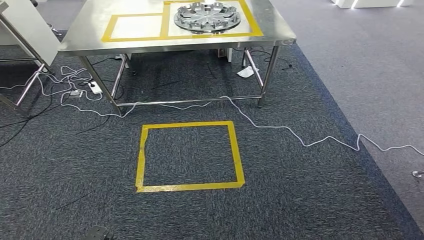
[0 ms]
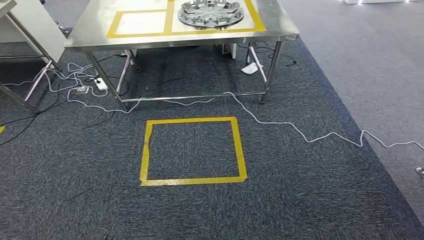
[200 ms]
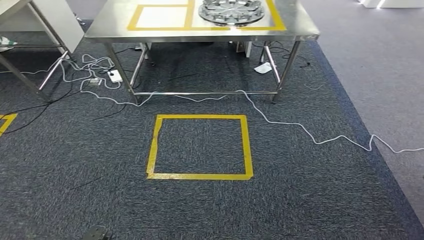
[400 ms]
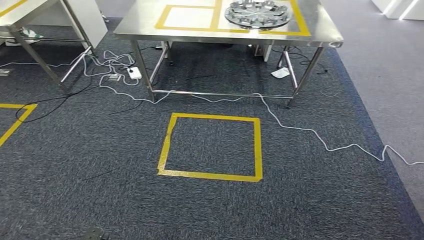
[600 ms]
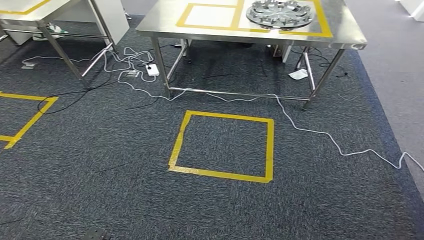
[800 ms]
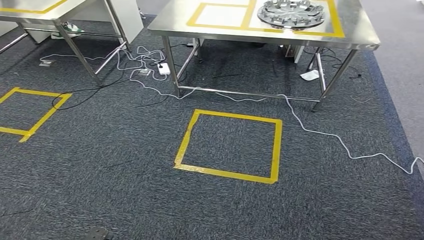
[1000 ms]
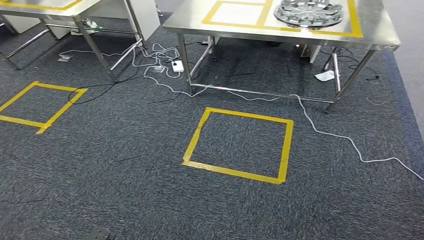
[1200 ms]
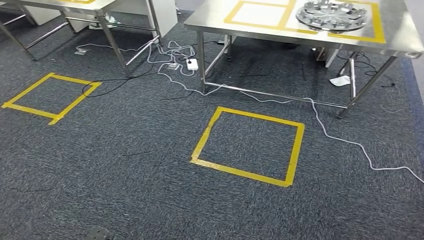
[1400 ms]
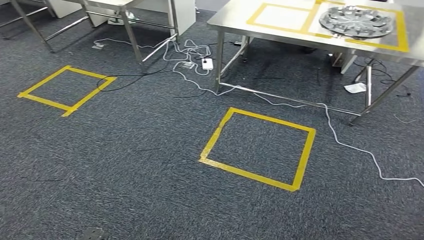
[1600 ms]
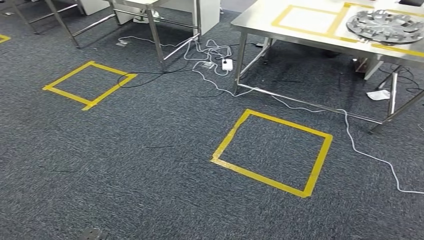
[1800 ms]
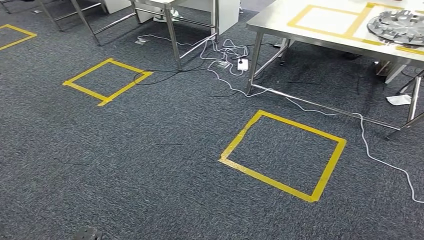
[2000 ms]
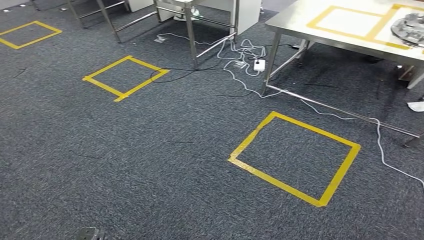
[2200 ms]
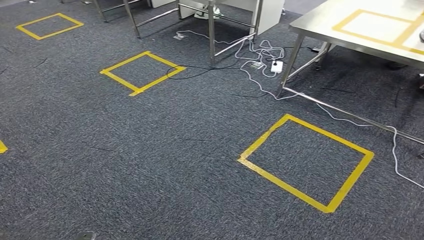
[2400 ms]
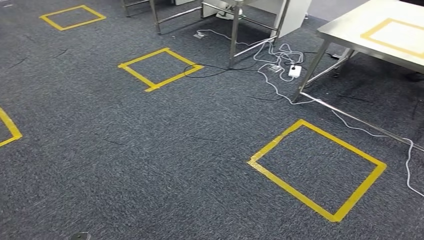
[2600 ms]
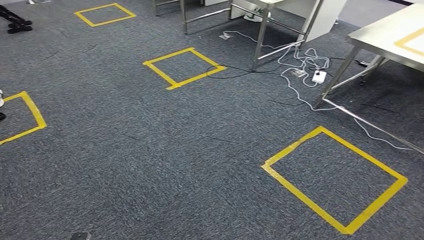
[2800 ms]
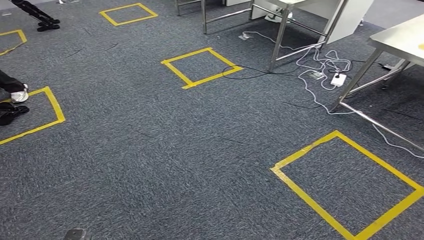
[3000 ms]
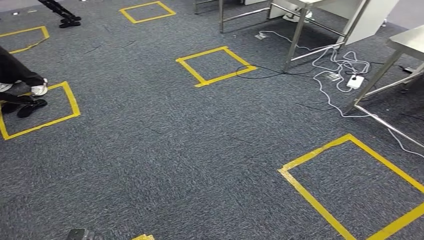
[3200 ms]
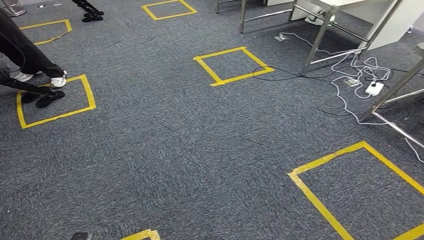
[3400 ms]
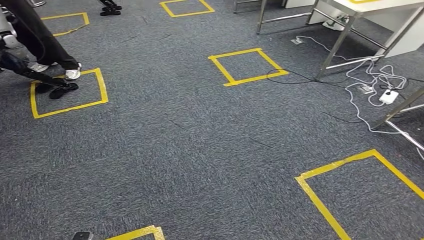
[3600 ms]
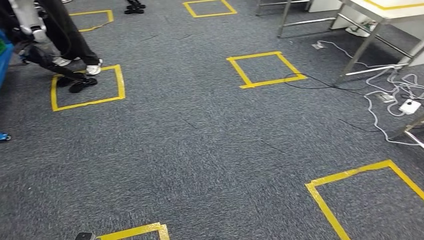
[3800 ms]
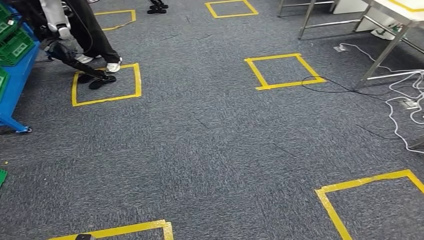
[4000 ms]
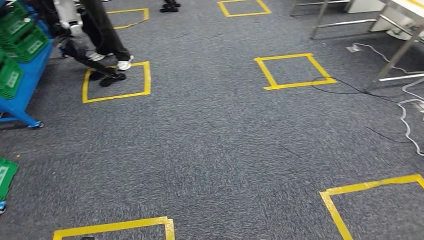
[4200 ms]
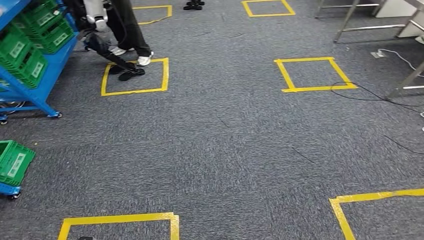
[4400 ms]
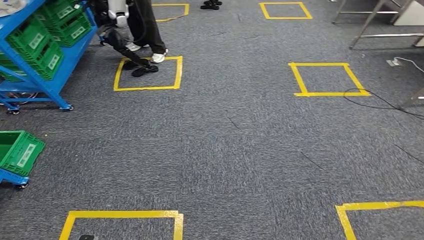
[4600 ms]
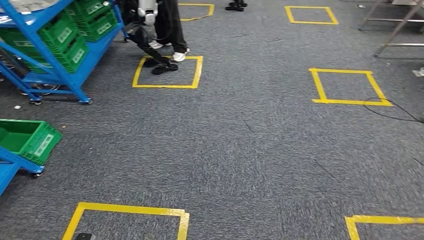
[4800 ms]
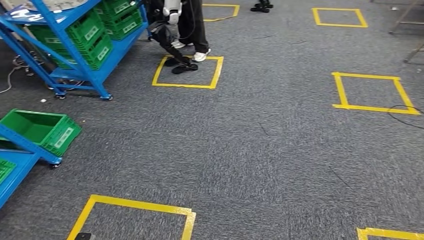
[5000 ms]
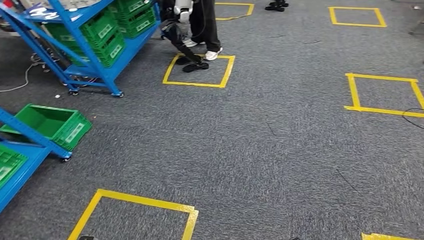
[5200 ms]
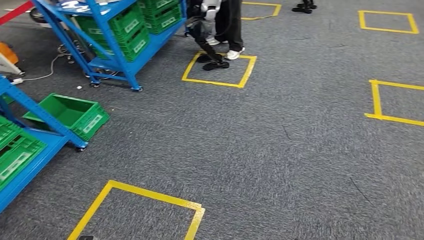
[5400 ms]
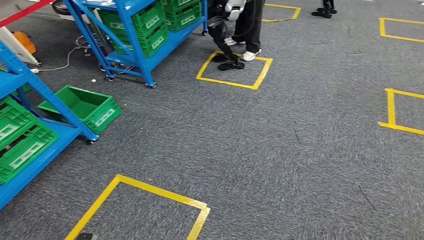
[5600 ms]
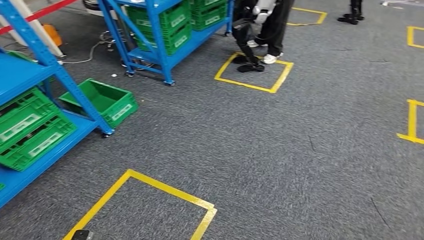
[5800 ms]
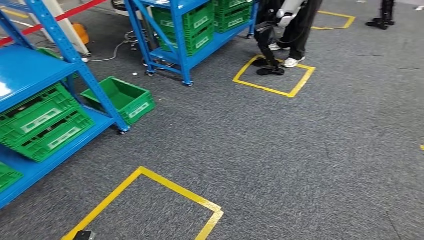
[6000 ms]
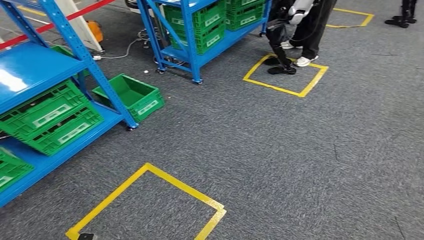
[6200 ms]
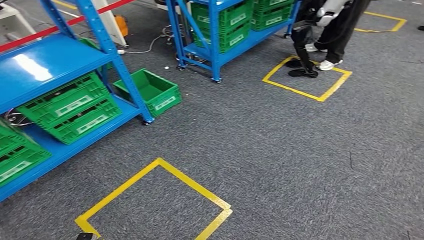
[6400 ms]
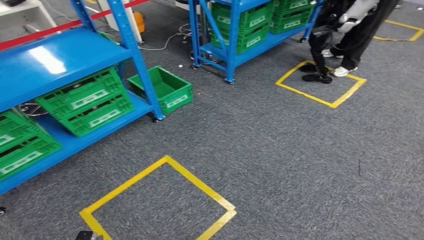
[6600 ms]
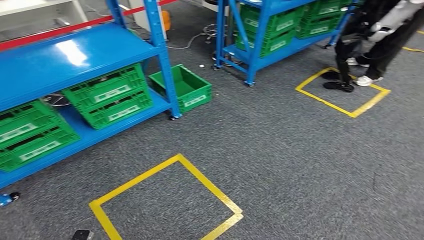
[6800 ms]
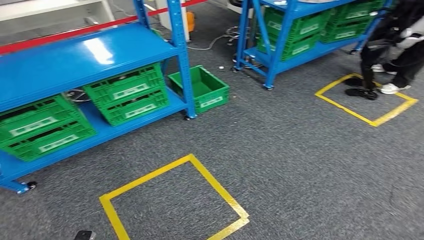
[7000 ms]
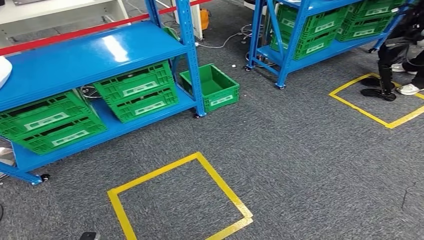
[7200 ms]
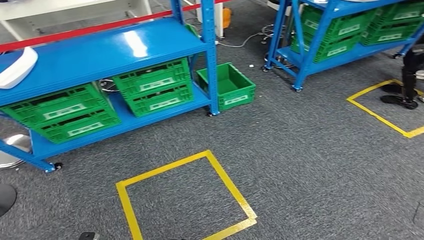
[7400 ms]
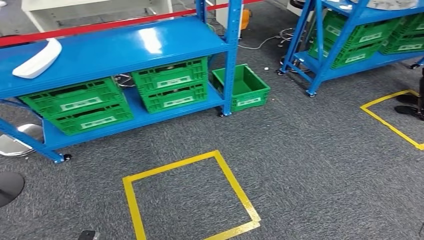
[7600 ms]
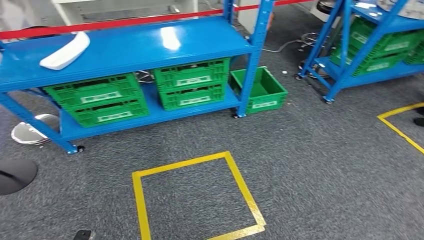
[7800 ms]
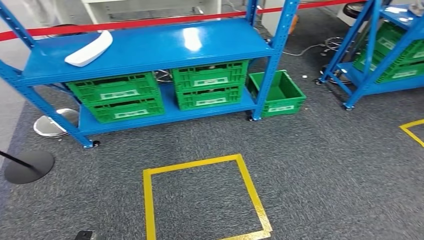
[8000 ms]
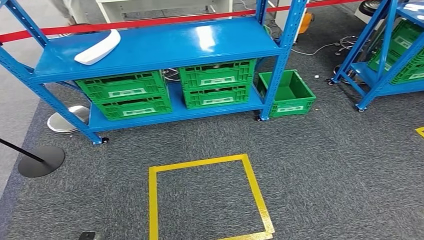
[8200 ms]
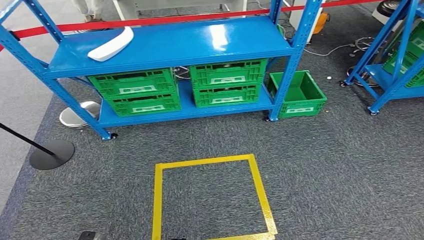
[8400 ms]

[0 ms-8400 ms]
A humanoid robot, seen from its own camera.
Step, 0 ms to 8400 ms: Move to the initial position of the workbench.

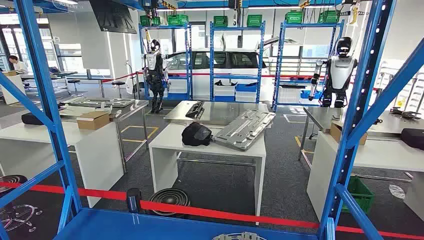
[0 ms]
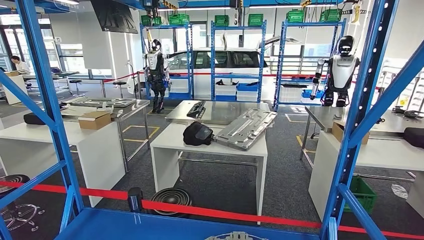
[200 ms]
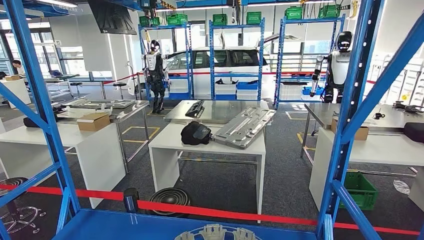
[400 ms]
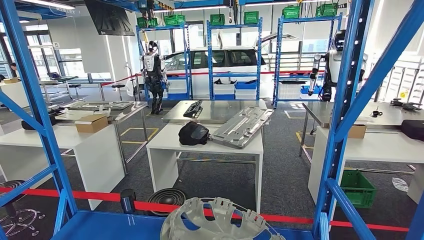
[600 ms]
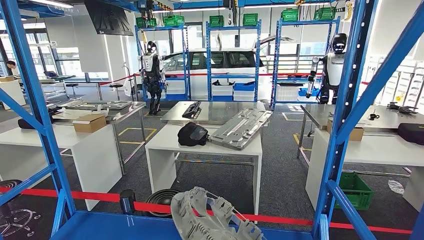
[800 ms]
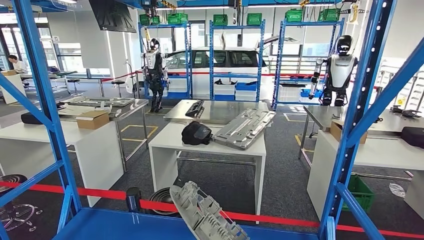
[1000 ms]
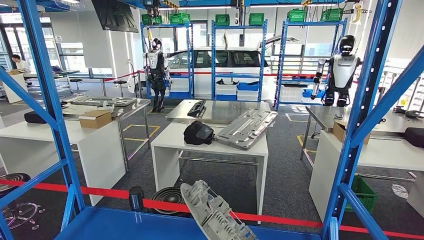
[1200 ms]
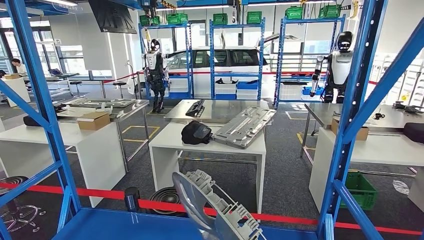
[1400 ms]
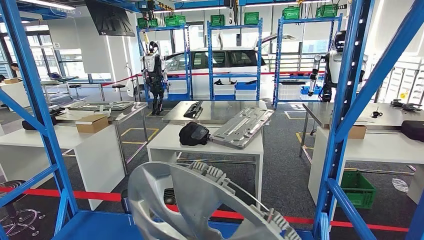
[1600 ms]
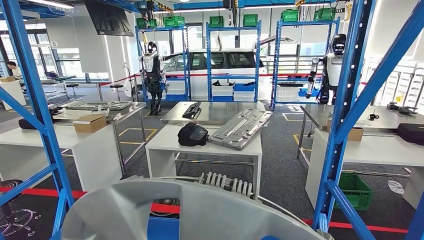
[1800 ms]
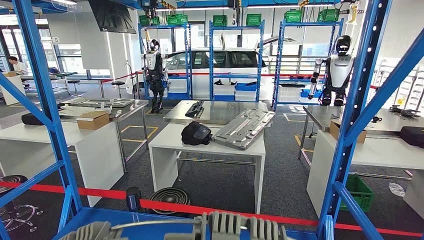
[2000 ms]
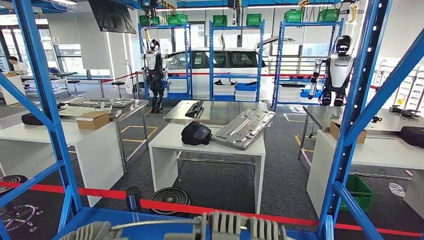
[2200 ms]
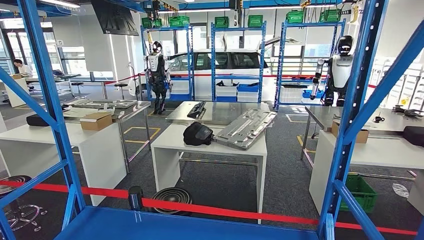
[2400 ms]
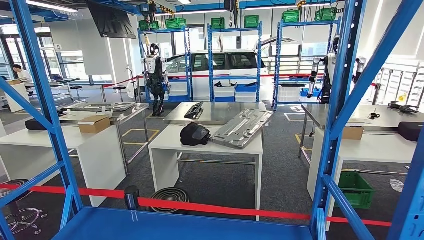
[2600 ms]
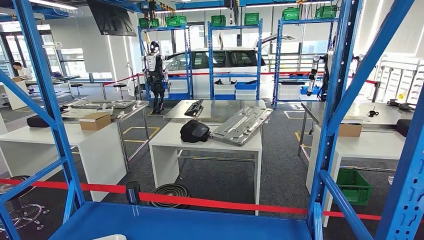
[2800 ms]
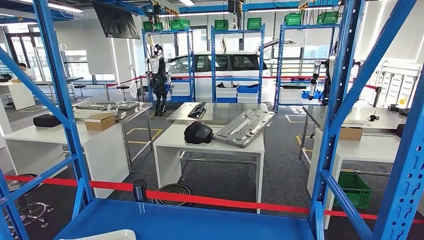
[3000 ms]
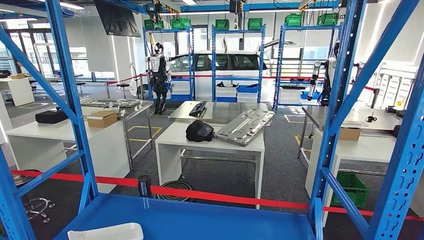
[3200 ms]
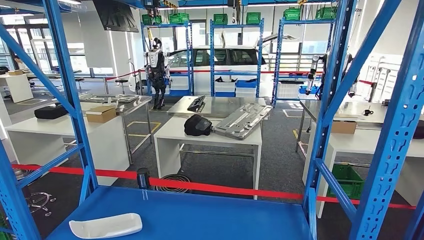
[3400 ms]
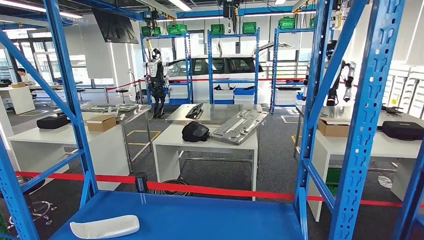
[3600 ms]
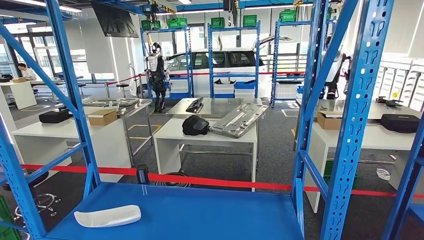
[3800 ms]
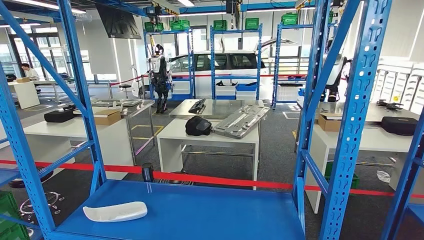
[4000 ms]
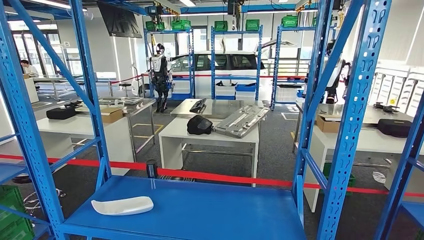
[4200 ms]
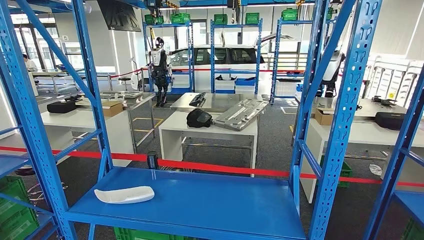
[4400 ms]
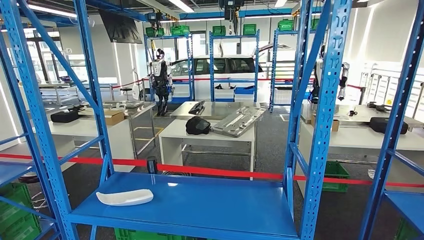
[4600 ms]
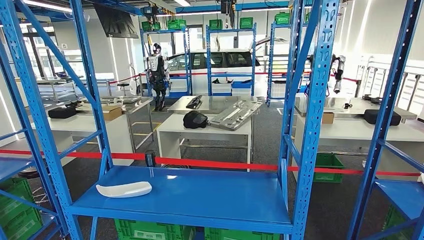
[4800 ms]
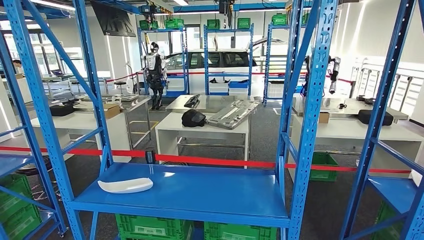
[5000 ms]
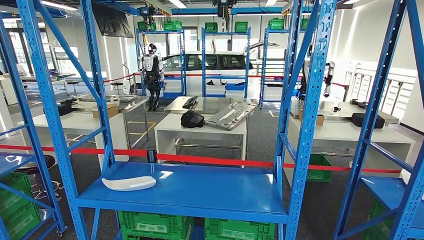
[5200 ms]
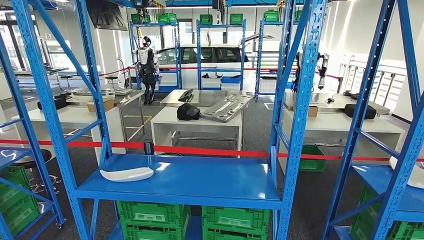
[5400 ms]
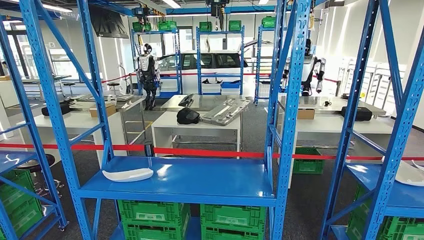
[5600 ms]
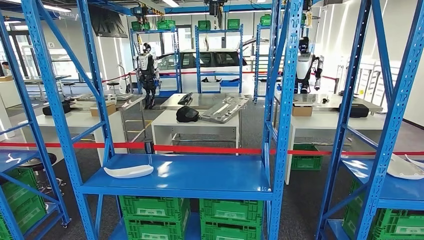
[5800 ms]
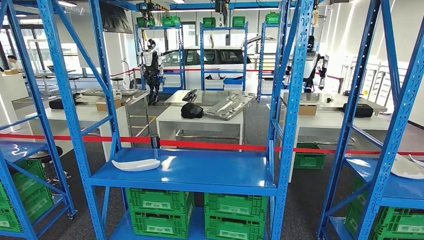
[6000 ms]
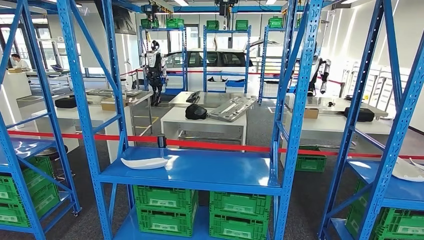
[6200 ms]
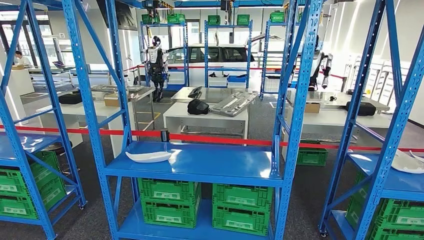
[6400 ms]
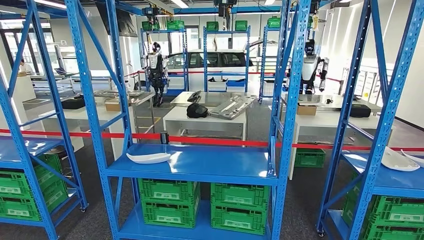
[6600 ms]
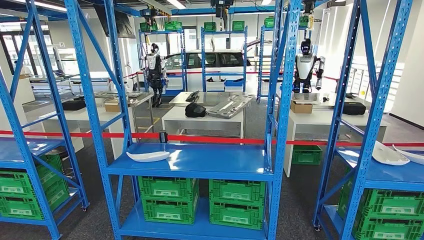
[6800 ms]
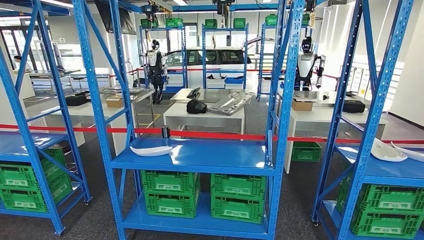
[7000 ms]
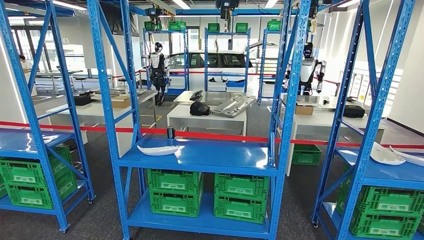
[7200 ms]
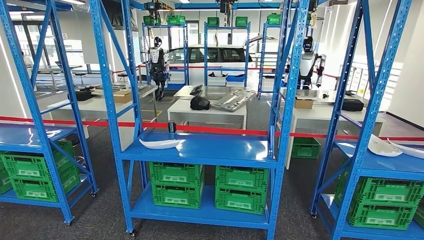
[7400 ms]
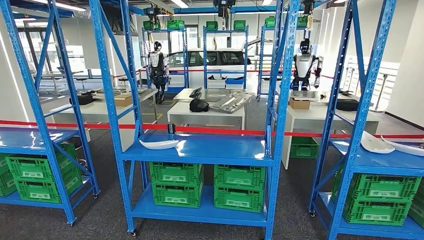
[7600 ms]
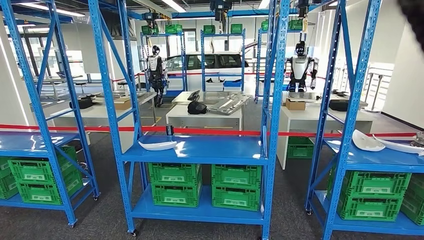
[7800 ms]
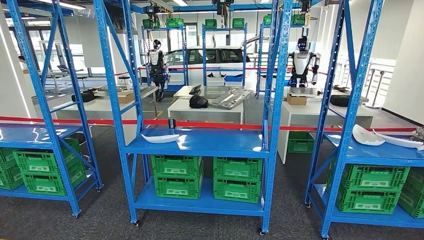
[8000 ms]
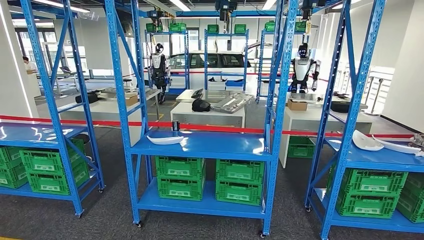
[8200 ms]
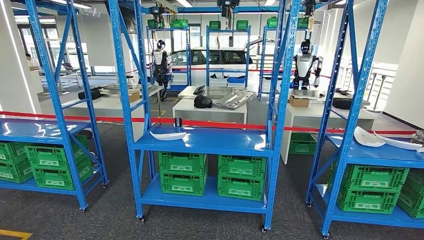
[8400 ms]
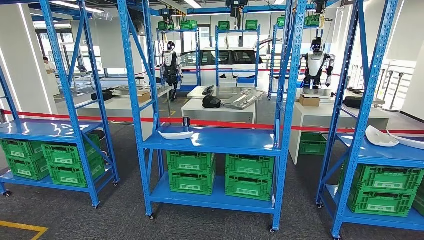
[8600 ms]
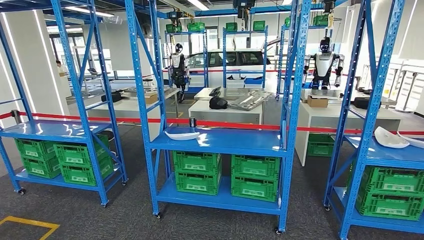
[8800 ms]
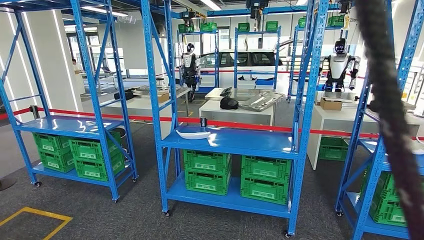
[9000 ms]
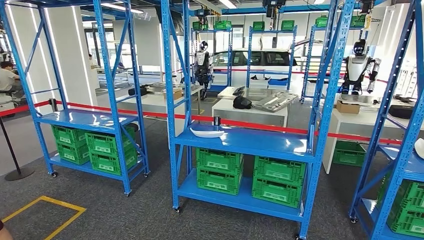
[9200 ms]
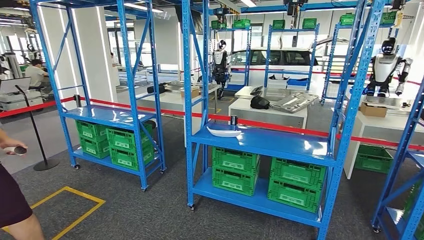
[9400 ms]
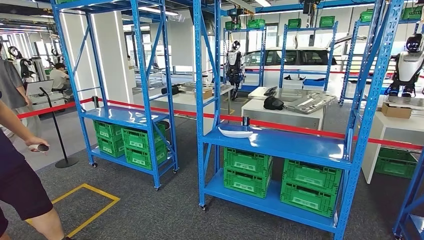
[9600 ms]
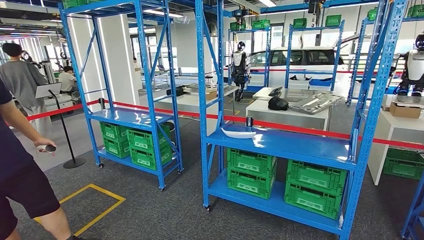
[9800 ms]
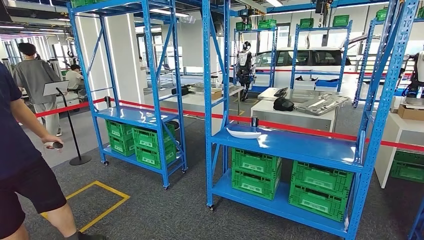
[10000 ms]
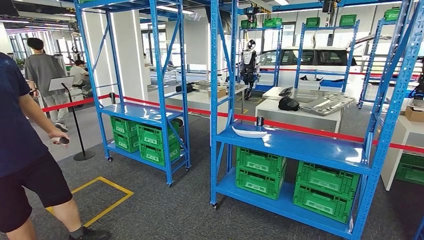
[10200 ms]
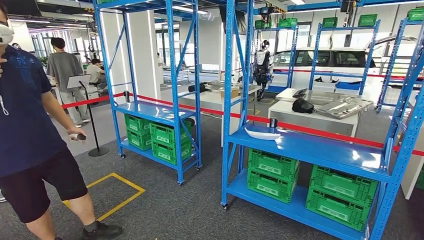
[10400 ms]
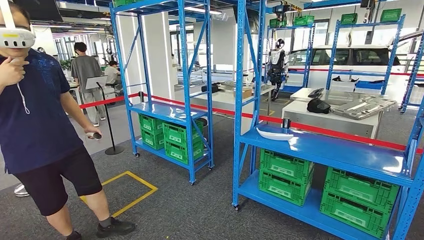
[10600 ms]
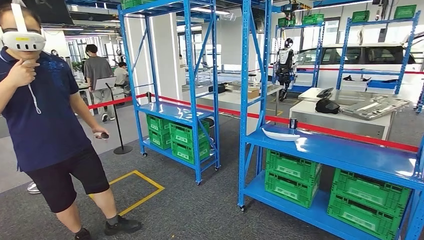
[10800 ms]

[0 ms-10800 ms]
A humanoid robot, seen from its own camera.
Step, 0 ms to 3000 ms: Pick up the small component from the shelf.
